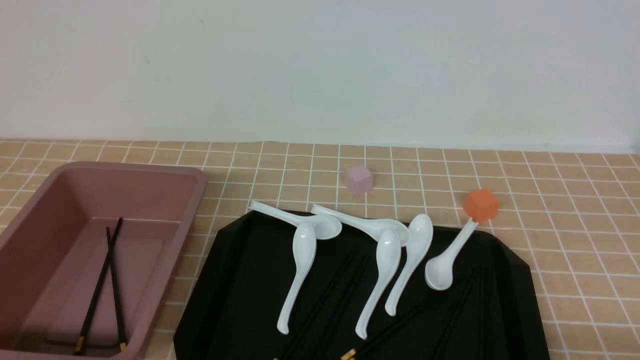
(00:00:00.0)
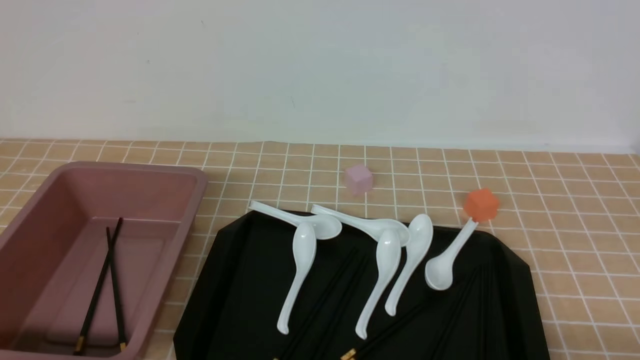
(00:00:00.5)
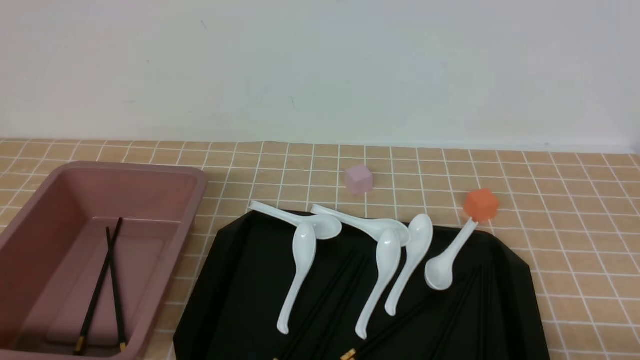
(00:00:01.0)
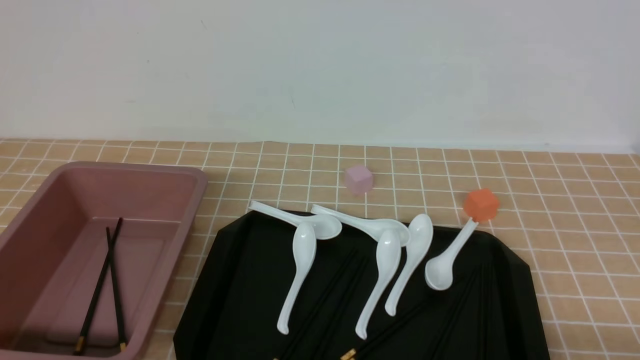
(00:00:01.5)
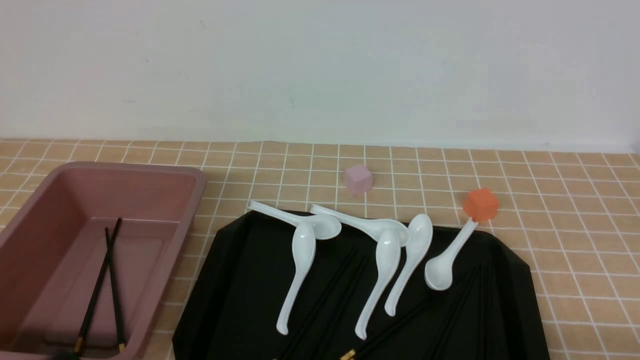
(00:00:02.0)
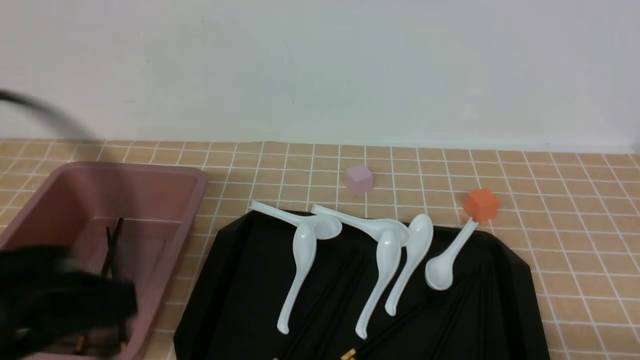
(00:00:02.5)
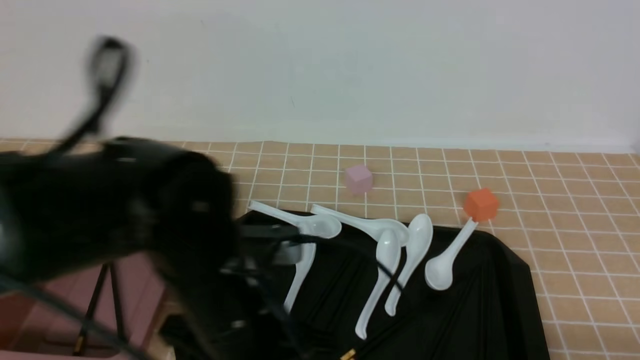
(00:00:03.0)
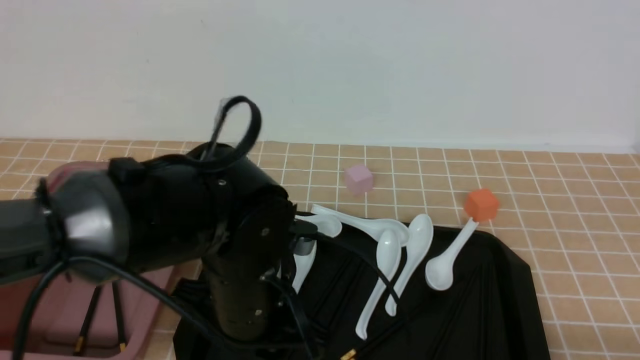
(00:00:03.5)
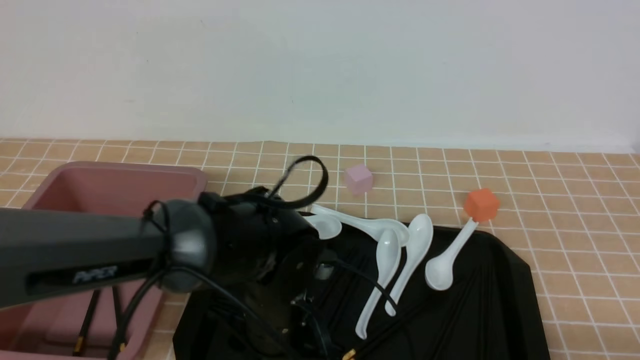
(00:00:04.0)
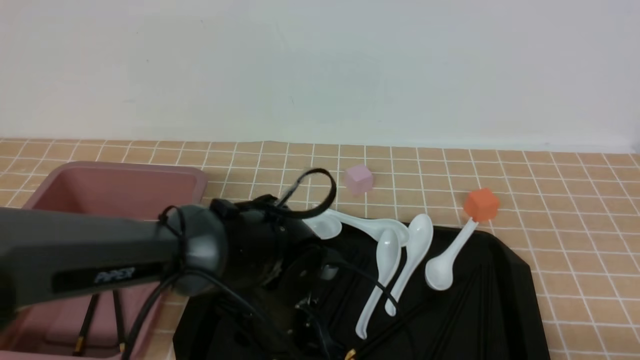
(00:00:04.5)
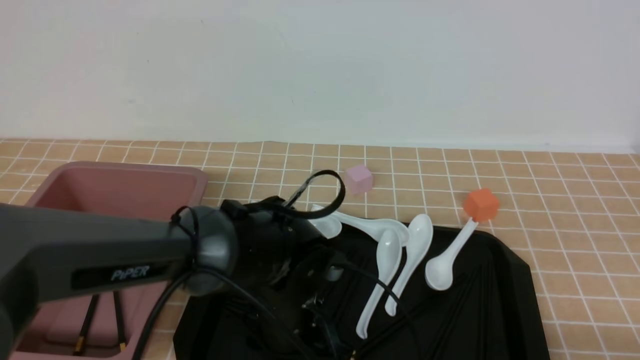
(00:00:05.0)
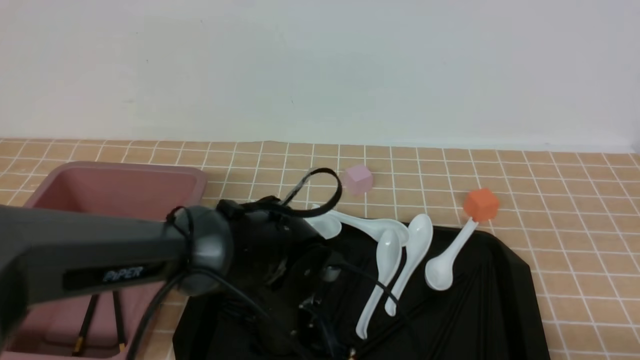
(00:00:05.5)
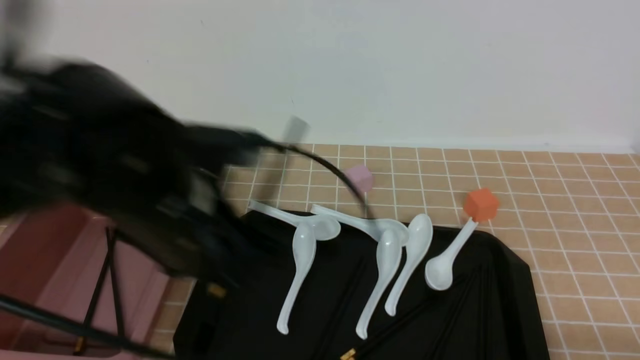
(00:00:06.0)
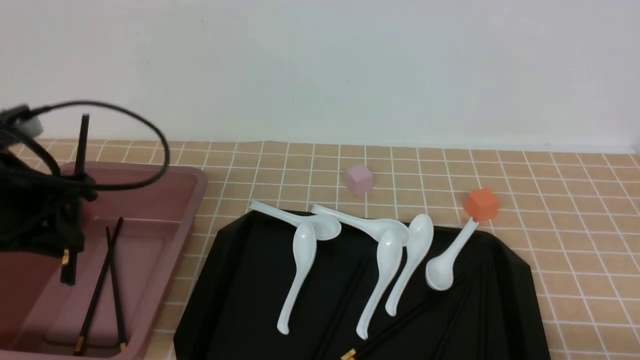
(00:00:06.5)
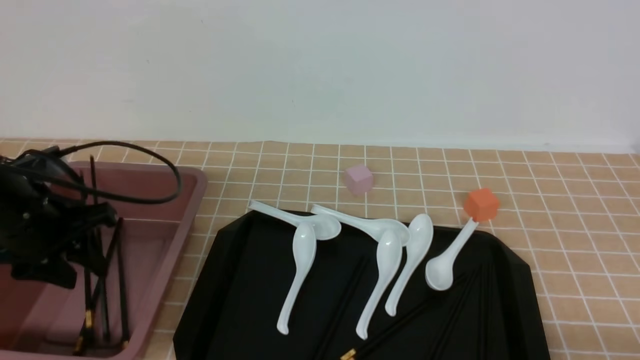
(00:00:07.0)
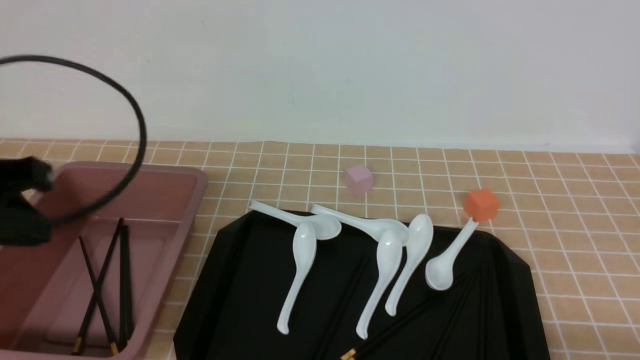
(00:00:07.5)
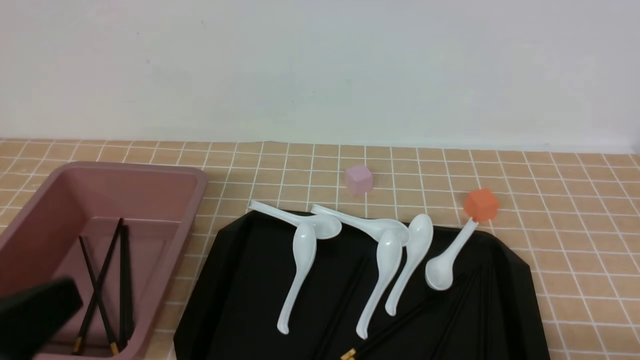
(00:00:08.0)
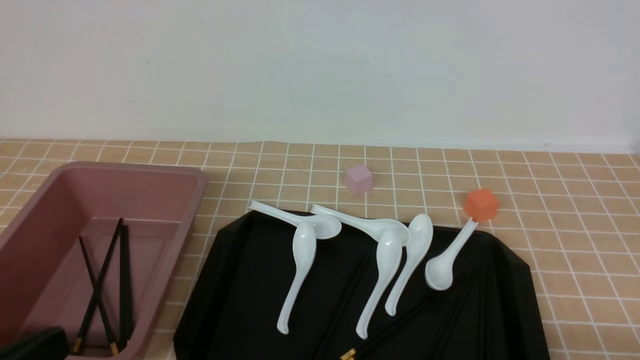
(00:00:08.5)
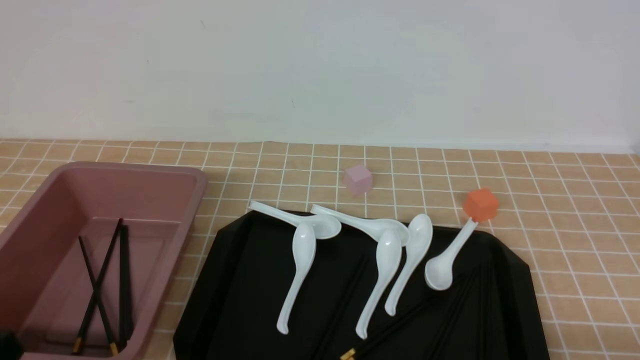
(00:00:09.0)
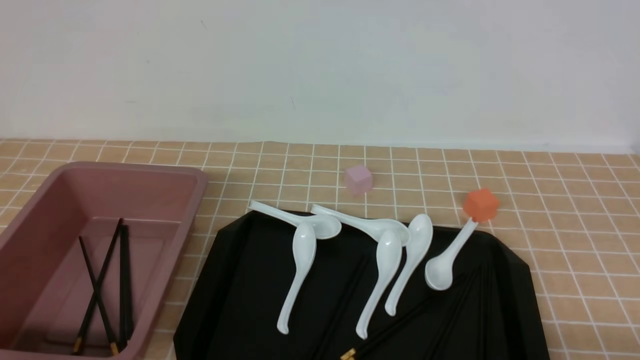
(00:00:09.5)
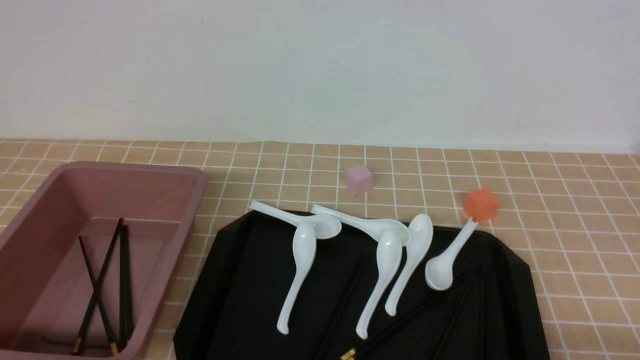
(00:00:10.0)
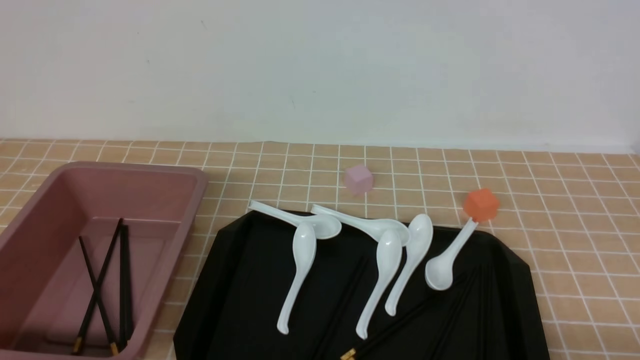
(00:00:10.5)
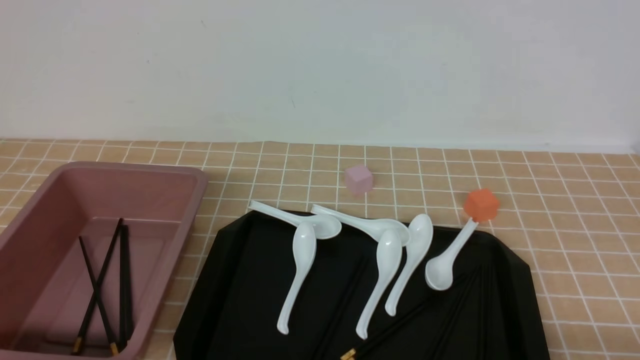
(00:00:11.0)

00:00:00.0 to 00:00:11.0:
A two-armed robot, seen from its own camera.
Step, 00:00:00.0 to 00:00:05.5: use the left arm to grab a pair of chopsticks.
Step, 00:00:06.0 to 00:00:07.0: use the left arm to put the chopsticks into the lunch box.
00:00:02.0 to 00:00:03.5: The left gripper travels forward and to the right by some 25 cm, and opens its fingers.
00:00:03.5 to 00:00:05.5: The left gripper moves approximately 5 cm, and closes up.
00:00:05.5 to 00:00:07.5: The left gripper shifts about 30 cm to the left and upward.
00:00:07.5 to 00:00:09.0: The left gripper is displaced backward and downward by about 20 cm.
